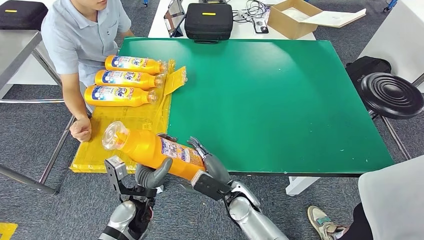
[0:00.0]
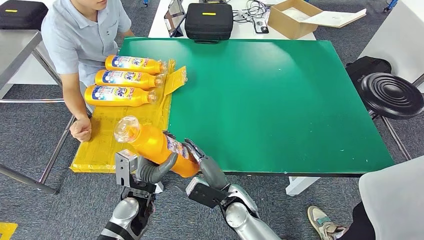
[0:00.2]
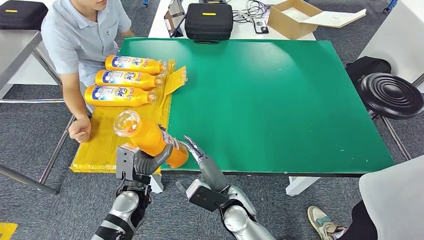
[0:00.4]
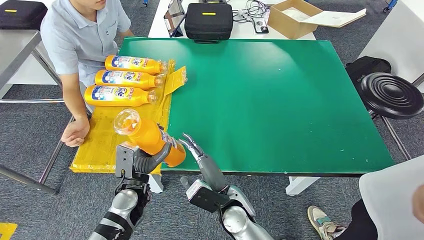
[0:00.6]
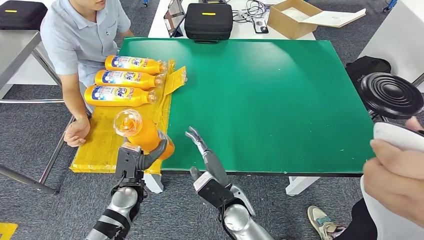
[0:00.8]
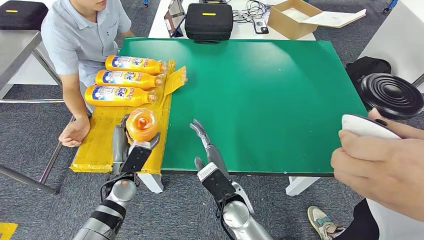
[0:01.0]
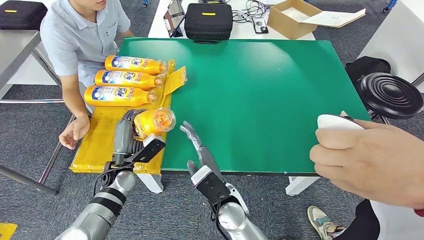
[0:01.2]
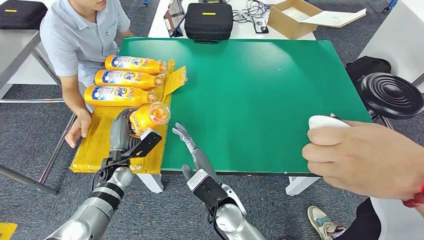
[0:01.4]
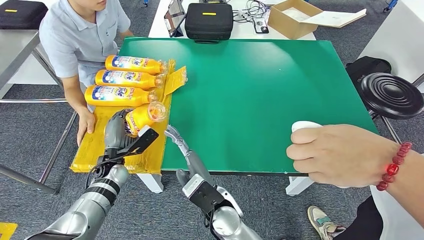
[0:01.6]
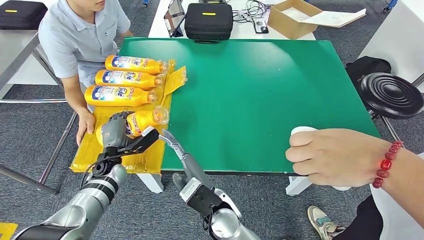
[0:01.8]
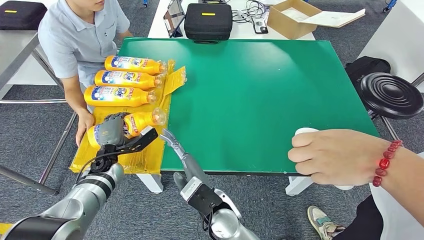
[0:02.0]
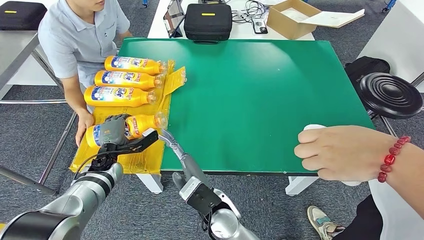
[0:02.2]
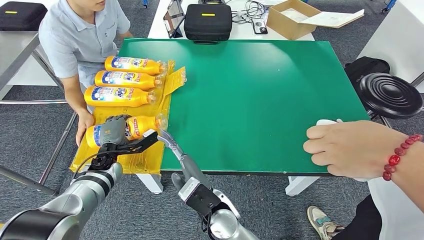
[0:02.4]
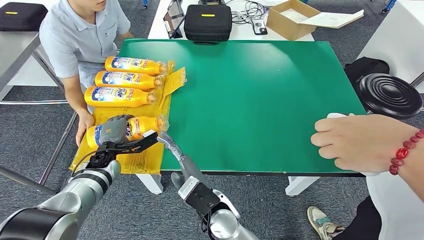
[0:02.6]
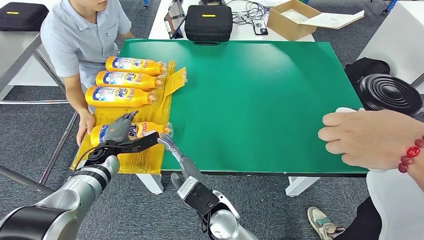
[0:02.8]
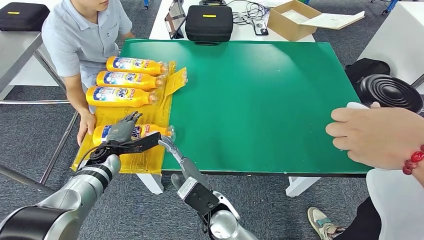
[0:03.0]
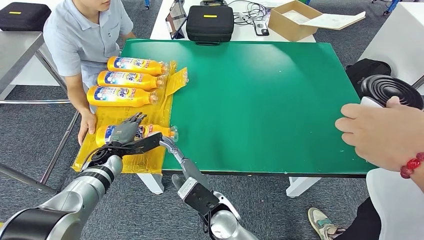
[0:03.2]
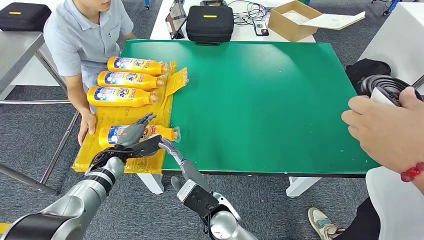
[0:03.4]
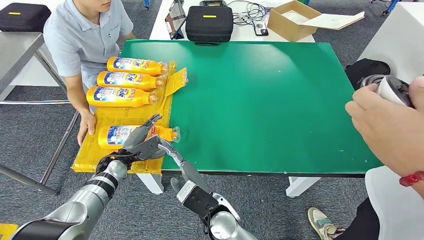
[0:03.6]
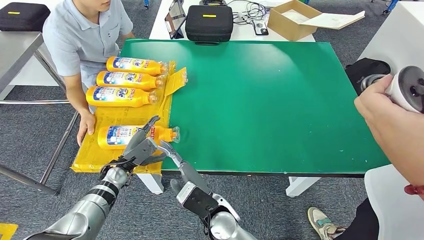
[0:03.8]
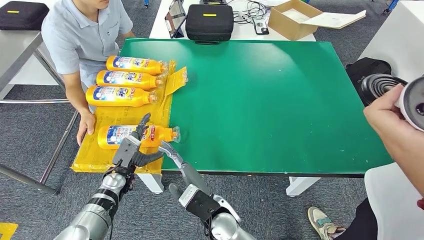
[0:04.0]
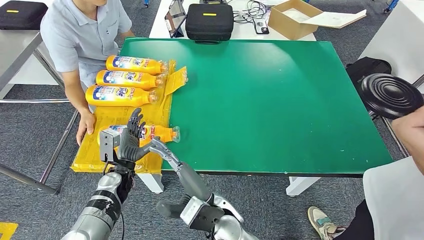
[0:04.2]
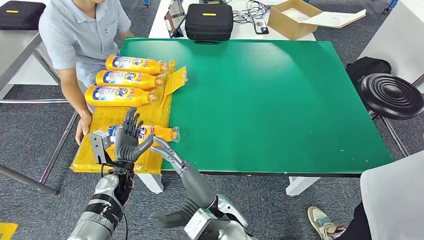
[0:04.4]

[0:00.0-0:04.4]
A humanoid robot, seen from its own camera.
Step, 0:00.0 to 0:04.4: Flip the fast-moving consumer goods bottle to the front side.

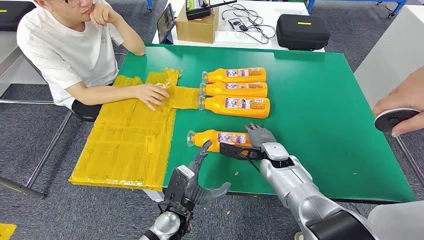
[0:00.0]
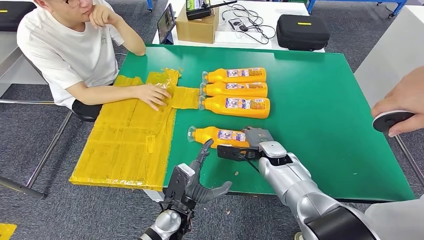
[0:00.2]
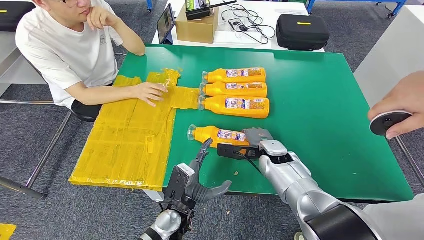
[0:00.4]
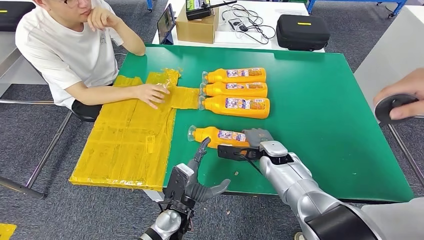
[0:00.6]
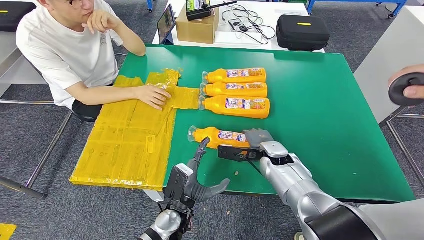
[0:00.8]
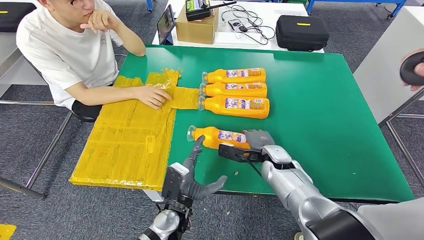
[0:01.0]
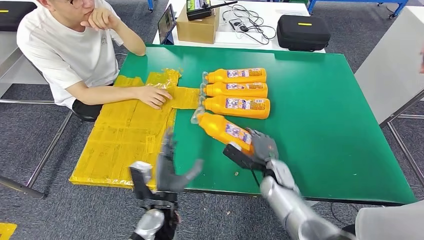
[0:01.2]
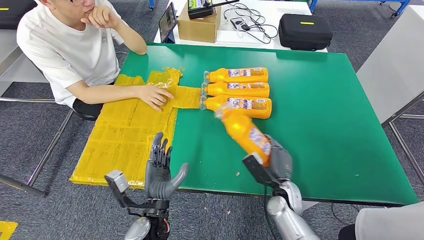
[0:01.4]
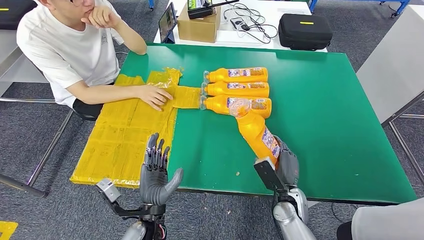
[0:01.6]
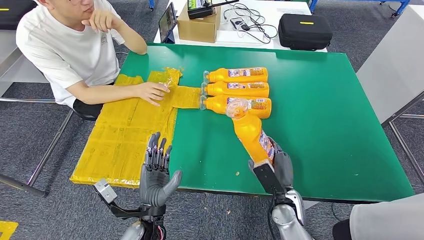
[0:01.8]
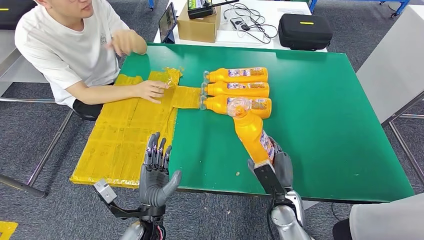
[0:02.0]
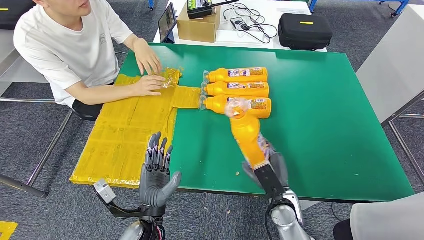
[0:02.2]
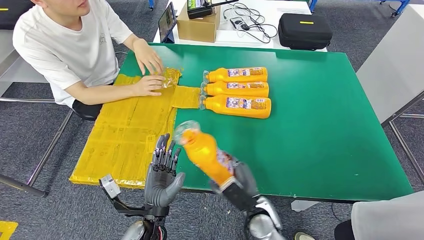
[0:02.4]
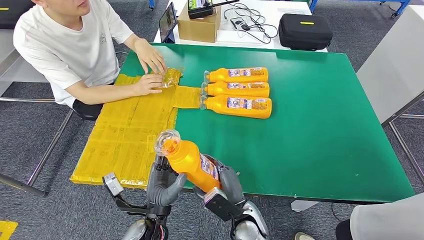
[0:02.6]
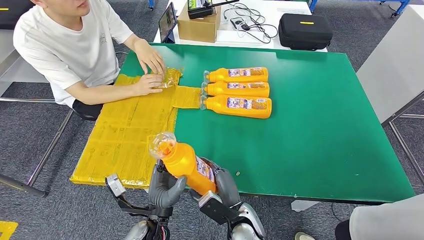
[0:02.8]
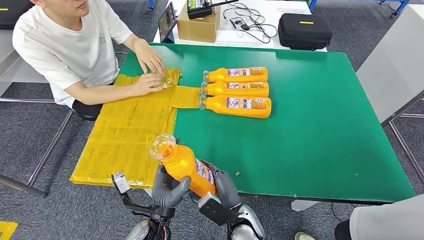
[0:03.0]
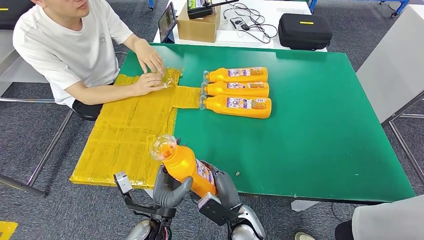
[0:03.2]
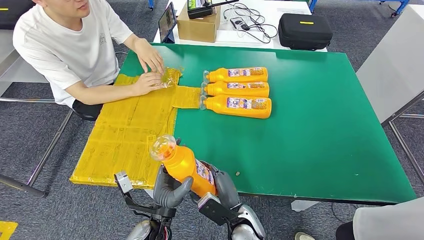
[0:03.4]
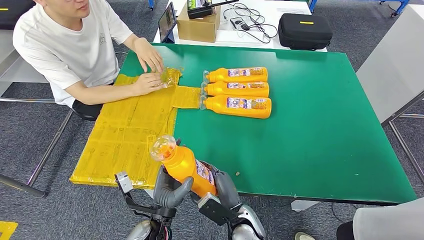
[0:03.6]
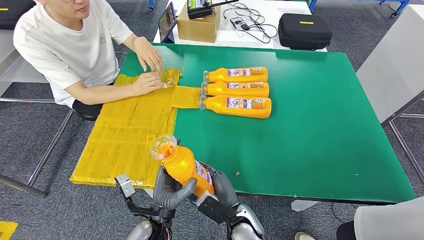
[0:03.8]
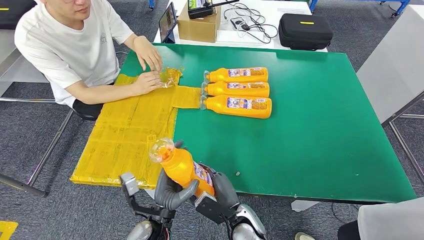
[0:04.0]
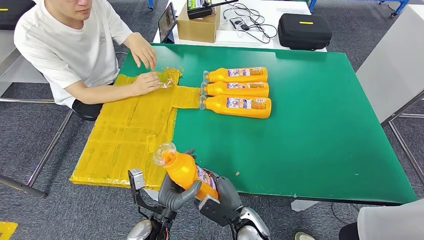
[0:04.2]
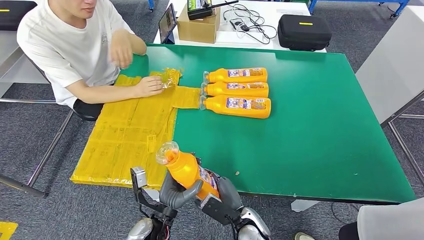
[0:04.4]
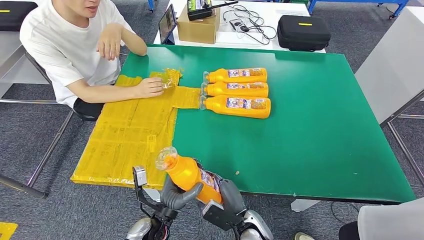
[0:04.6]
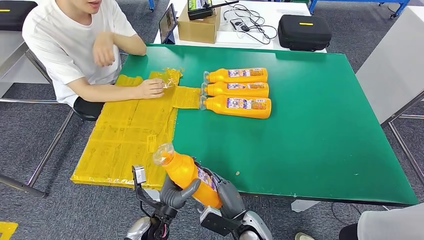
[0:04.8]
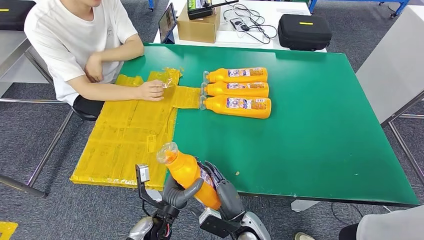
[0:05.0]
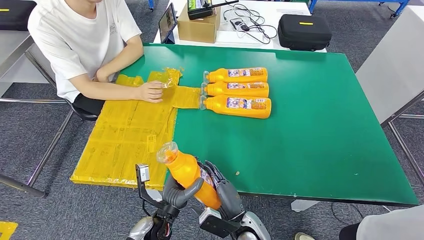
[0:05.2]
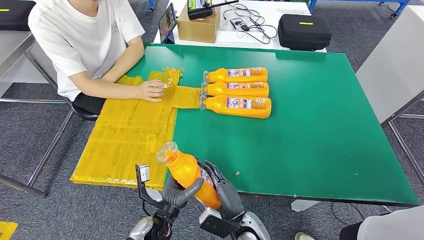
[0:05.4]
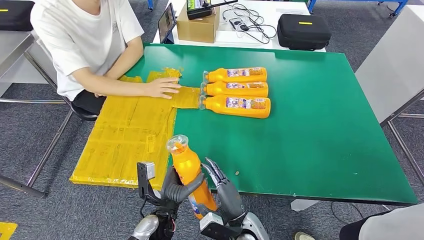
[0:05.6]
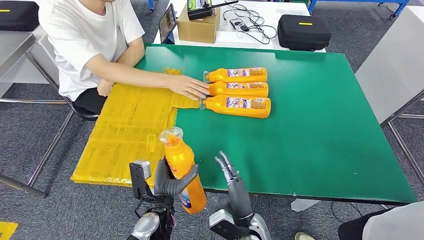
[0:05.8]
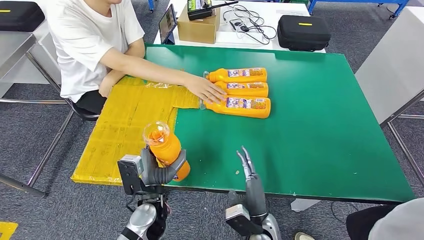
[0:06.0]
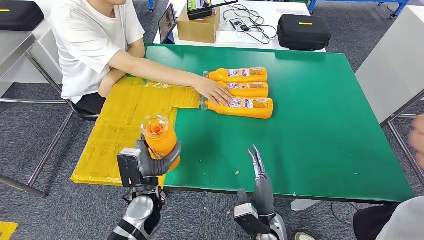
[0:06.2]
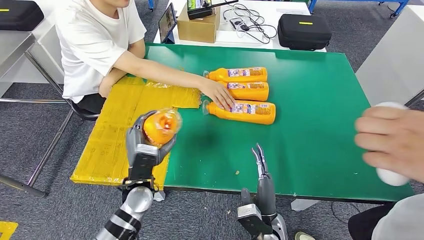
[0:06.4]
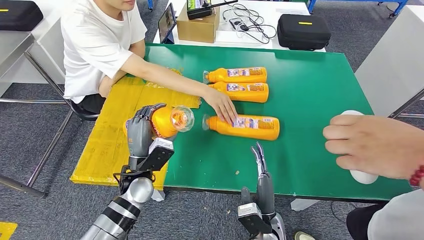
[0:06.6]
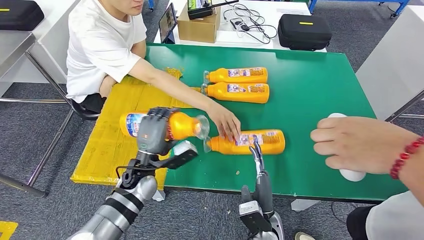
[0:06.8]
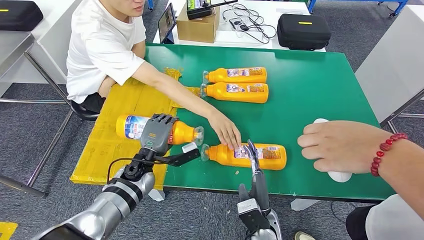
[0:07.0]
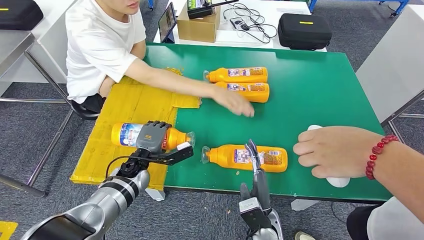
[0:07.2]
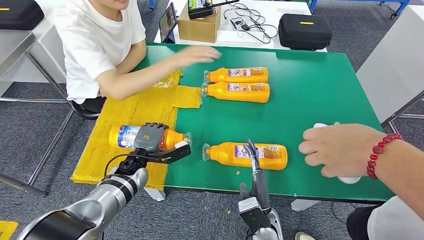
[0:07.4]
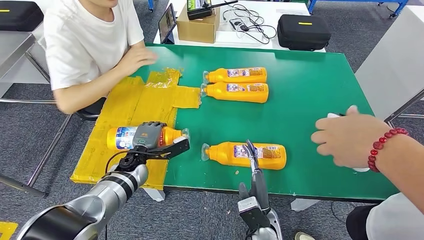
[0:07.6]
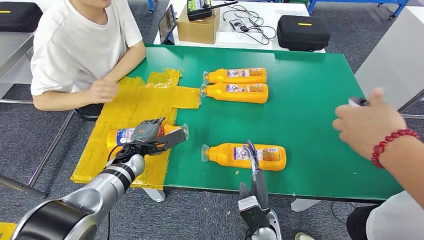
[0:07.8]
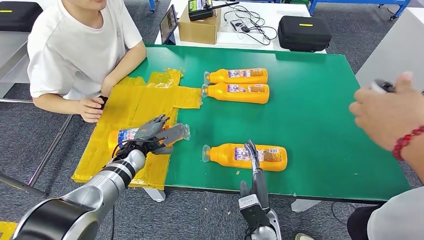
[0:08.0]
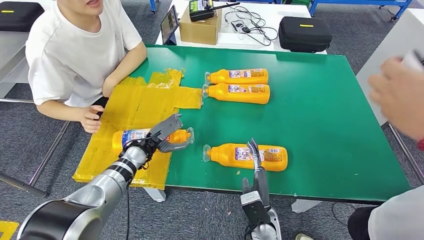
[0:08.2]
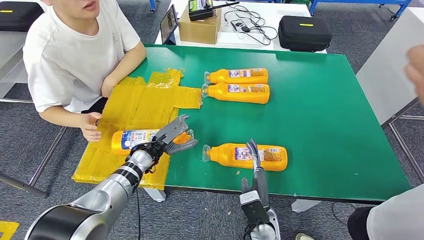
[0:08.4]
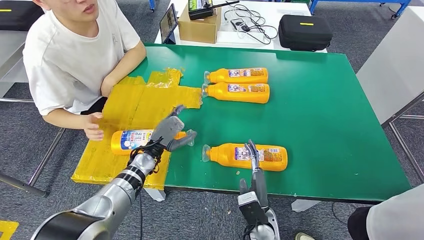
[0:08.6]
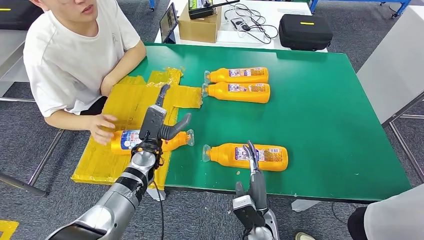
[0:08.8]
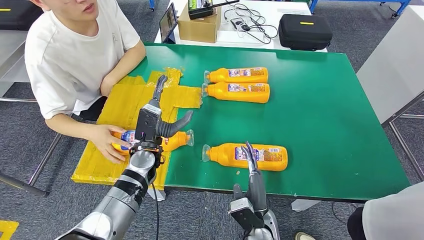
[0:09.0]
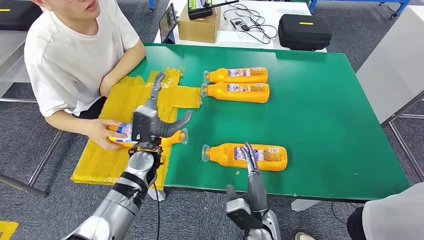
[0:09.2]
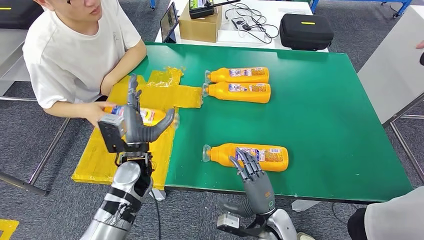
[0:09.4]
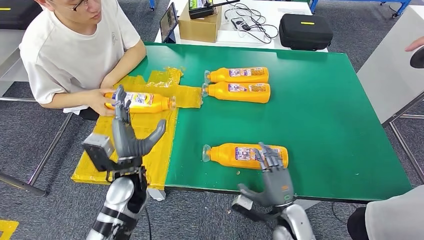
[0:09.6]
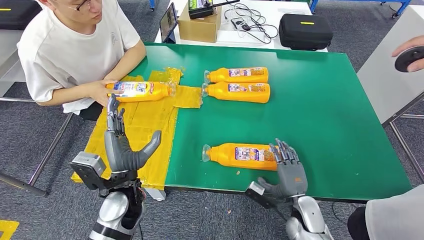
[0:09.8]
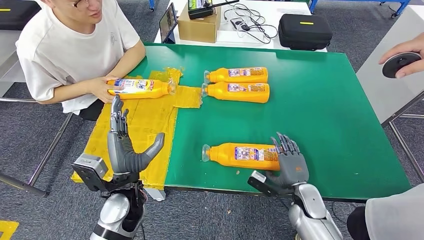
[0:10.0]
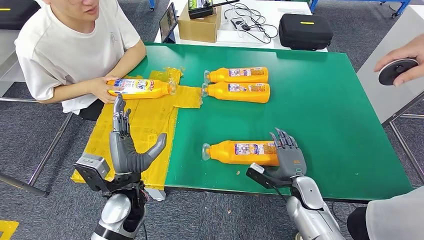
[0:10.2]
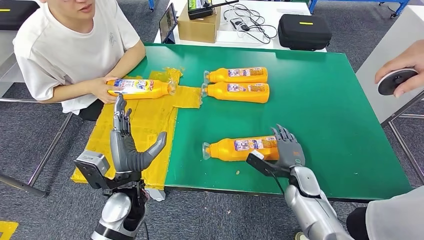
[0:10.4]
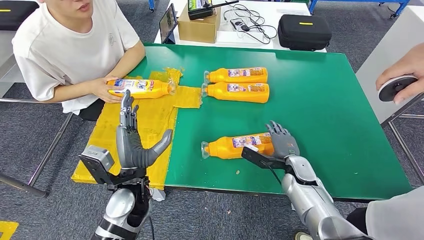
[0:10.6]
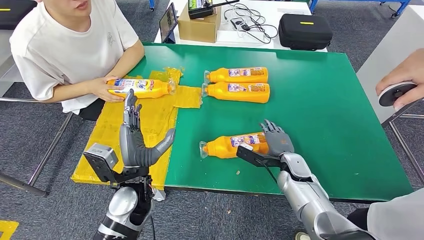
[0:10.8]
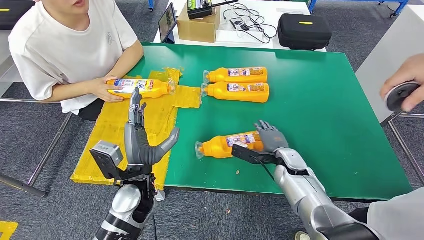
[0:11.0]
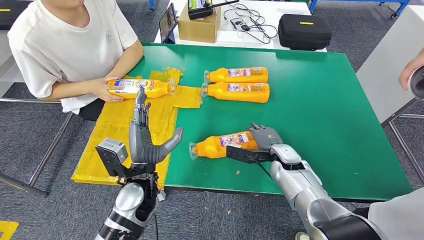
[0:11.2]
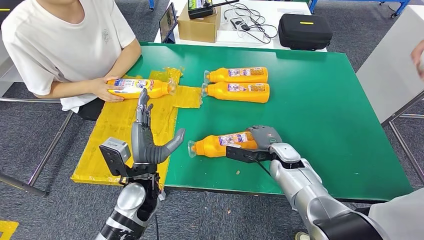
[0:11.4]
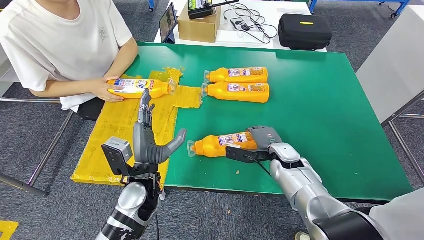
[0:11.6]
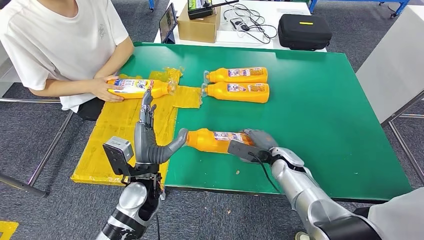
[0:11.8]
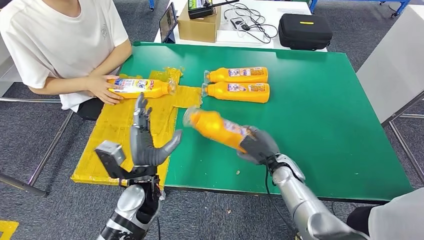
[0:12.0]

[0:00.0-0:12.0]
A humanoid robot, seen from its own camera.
Step, 0:00.0 to 0:01.4: Take the fast-moving consumer goods bottle from the table.
Step, 0:02.4 to 0:08.6: Flip the fast-moving consumer goods bottle to the front side.
0:01.6 to 0:03.0: The right hand is displaced to the left and backward by approximately 15 cm.
0:03.0 to 0:04.4: The hands stay close to where they were, moving slightly.

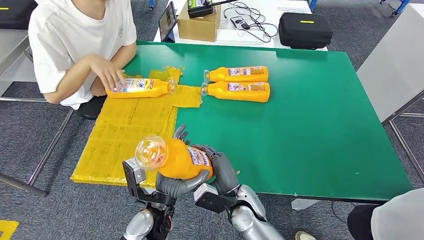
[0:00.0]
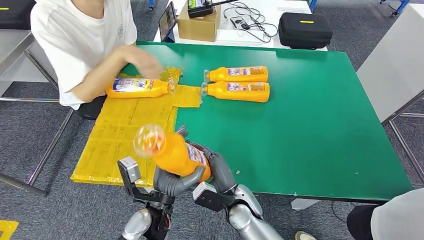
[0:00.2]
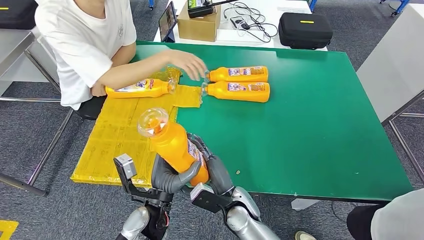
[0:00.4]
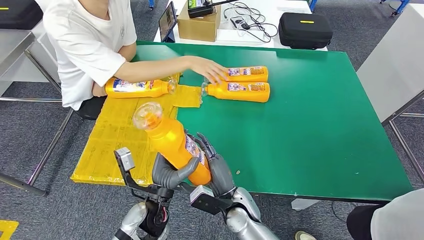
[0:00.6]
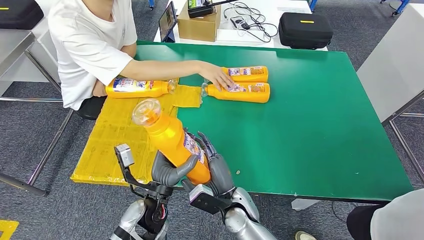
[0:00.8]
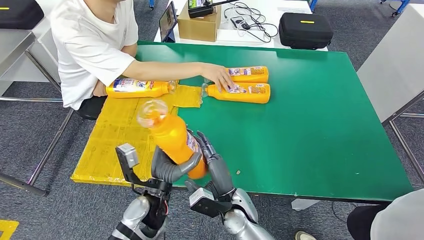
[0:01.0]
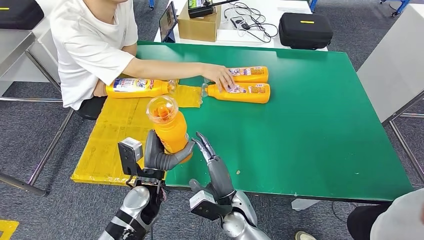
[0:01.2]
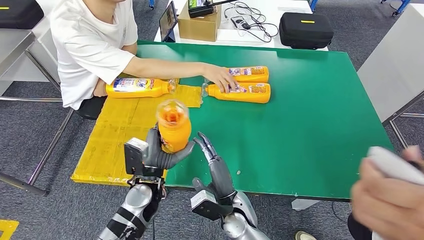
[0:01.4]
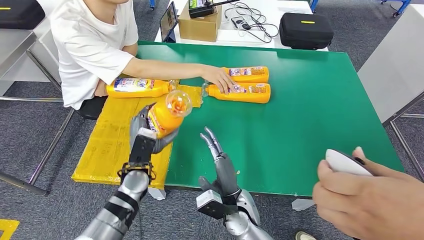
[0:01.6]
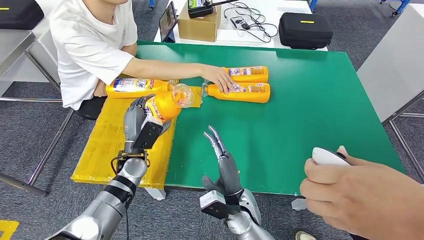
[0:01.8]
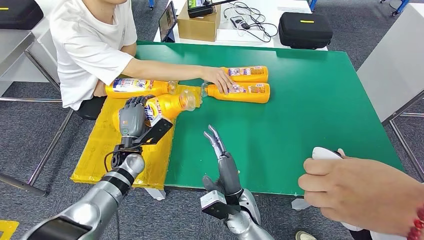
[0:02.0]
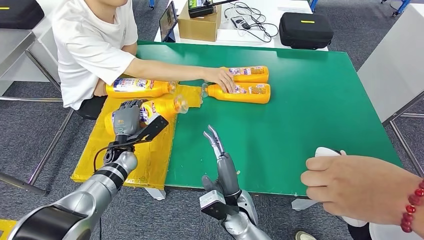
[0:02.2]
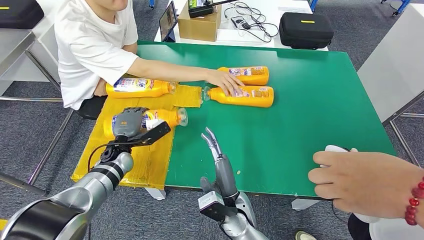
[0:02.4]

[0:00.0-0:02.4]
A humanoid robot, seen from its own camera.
0:00.0 to 0:01.2: The left hand is displaced forward by approximately 5 cm.
